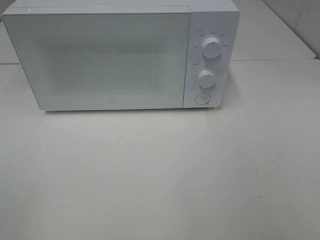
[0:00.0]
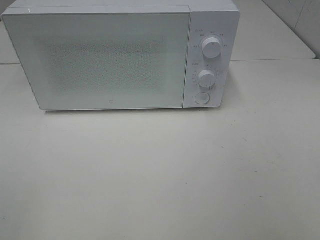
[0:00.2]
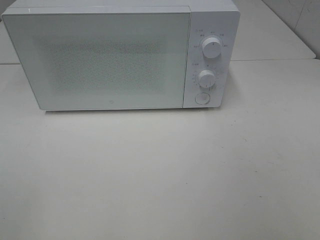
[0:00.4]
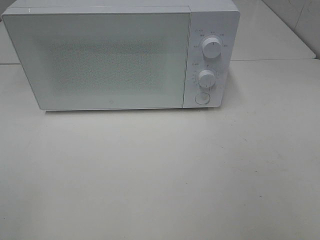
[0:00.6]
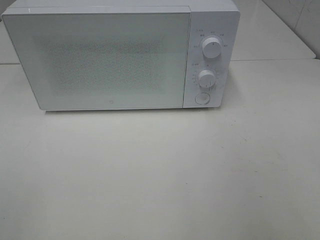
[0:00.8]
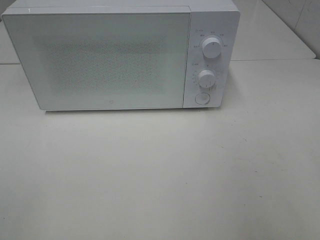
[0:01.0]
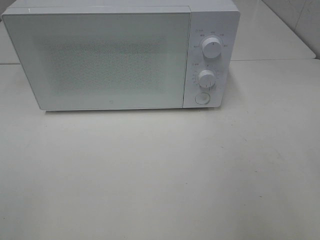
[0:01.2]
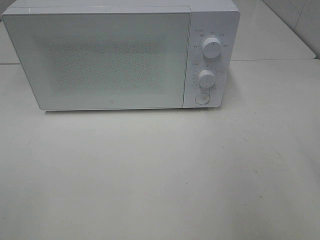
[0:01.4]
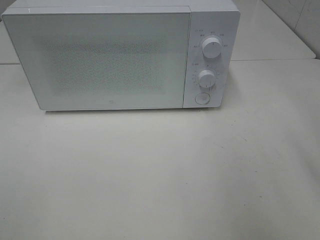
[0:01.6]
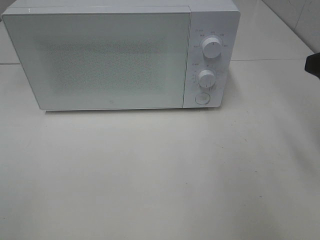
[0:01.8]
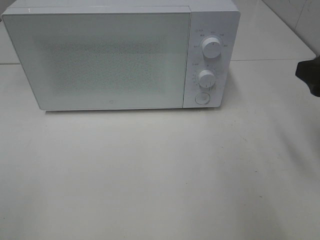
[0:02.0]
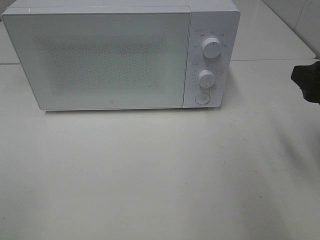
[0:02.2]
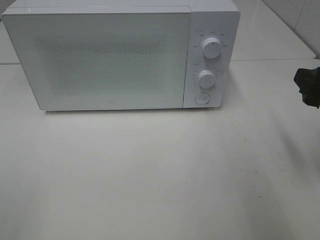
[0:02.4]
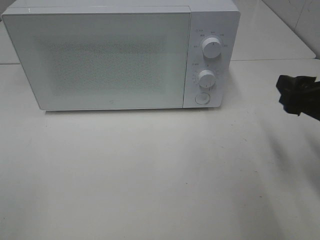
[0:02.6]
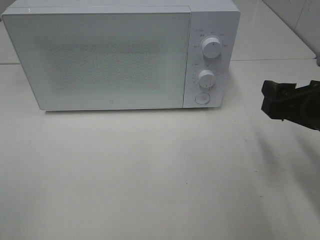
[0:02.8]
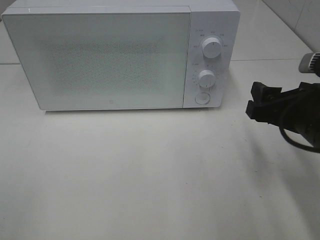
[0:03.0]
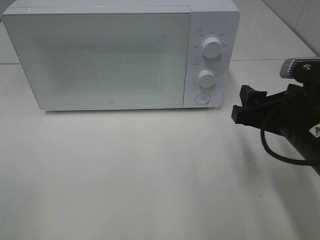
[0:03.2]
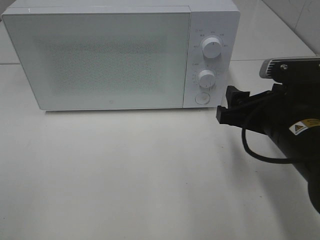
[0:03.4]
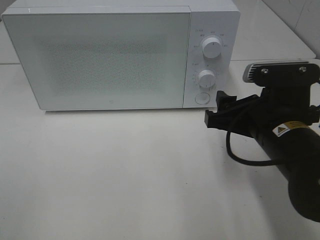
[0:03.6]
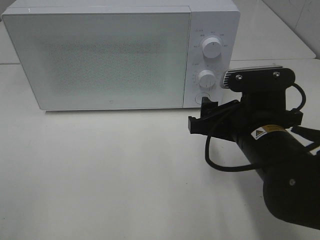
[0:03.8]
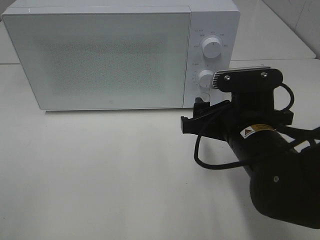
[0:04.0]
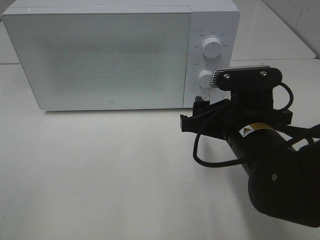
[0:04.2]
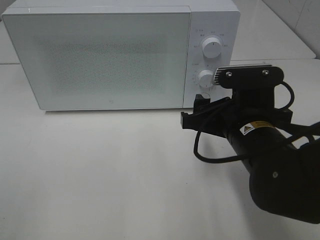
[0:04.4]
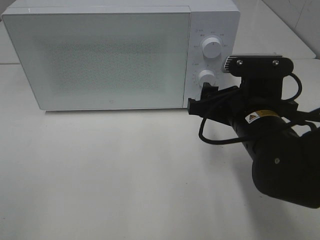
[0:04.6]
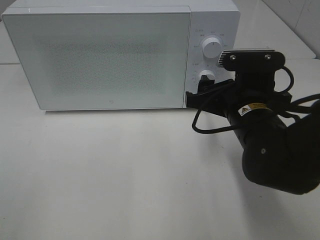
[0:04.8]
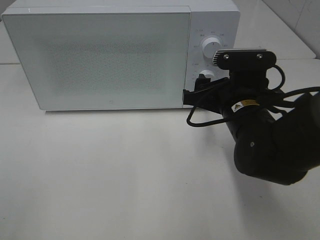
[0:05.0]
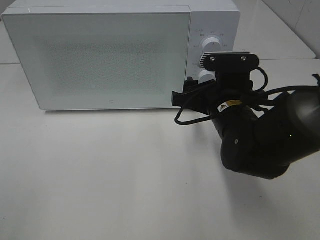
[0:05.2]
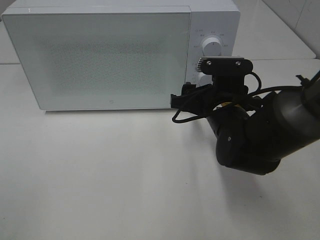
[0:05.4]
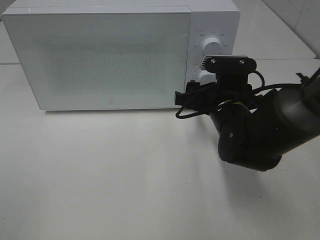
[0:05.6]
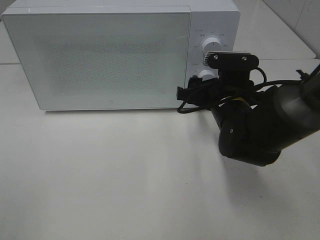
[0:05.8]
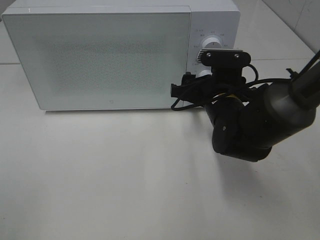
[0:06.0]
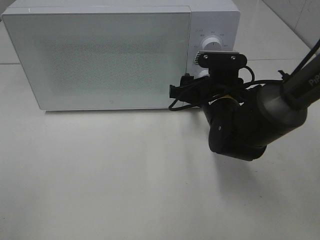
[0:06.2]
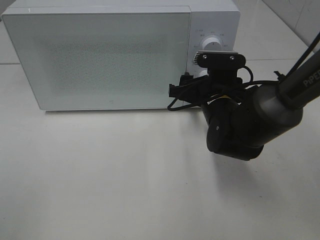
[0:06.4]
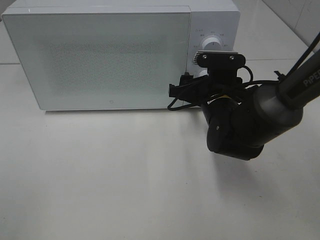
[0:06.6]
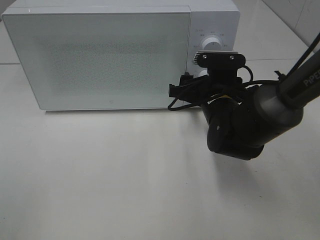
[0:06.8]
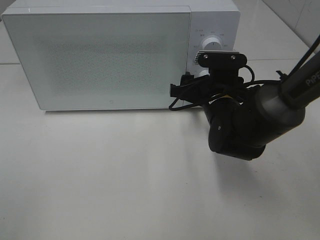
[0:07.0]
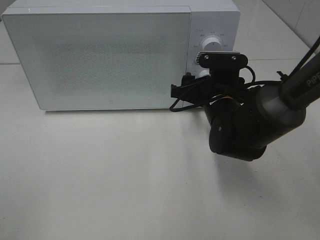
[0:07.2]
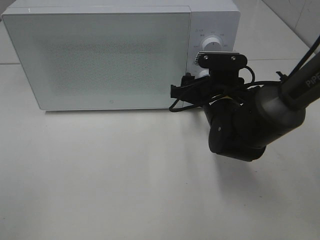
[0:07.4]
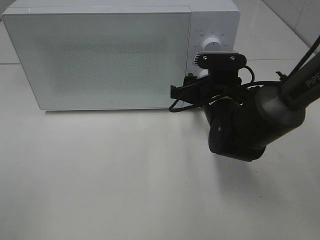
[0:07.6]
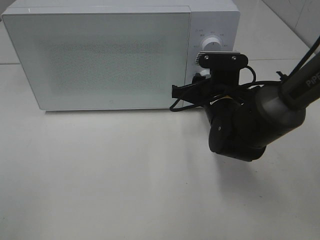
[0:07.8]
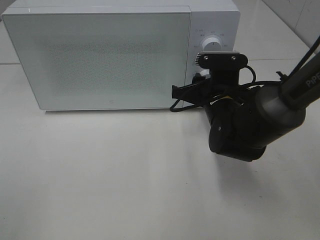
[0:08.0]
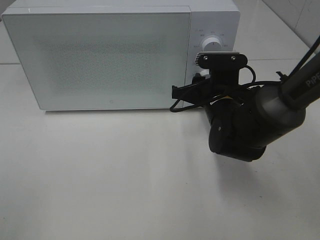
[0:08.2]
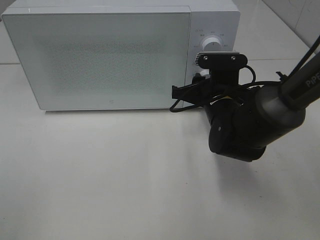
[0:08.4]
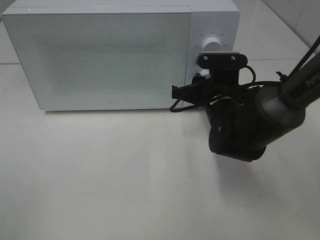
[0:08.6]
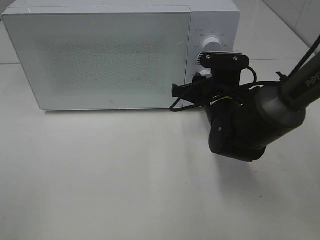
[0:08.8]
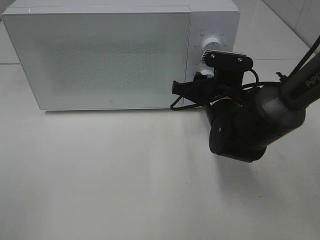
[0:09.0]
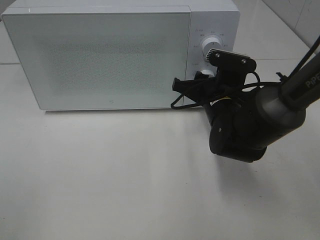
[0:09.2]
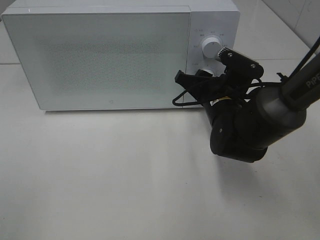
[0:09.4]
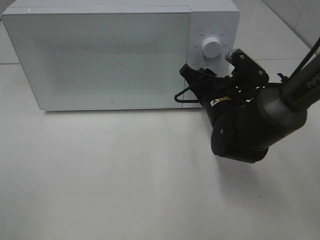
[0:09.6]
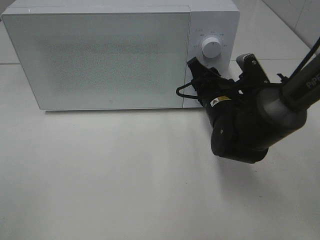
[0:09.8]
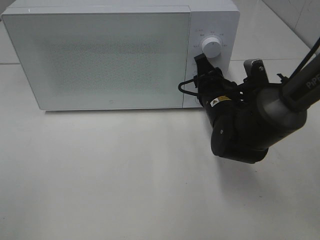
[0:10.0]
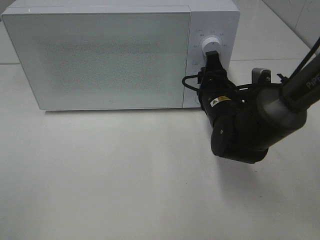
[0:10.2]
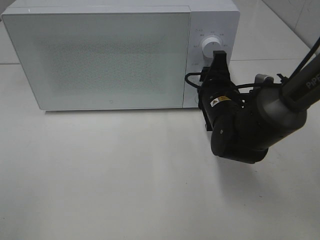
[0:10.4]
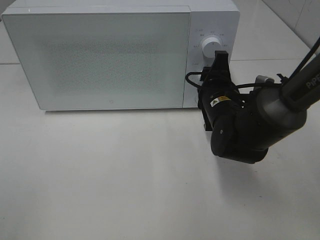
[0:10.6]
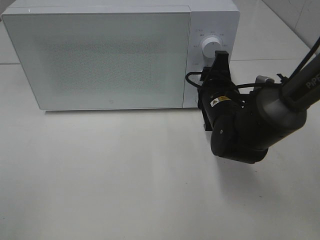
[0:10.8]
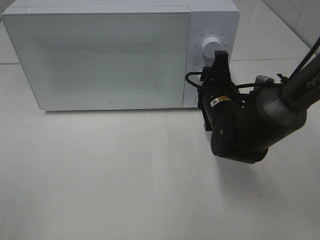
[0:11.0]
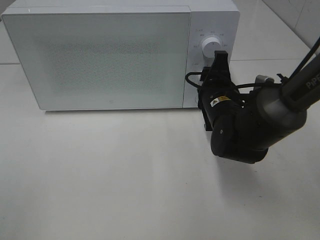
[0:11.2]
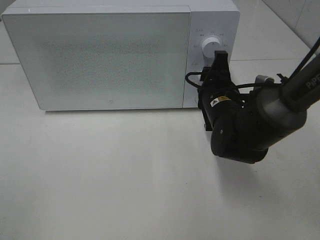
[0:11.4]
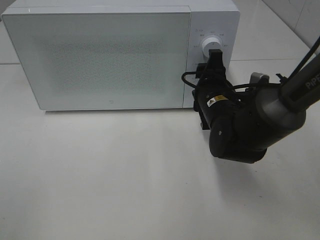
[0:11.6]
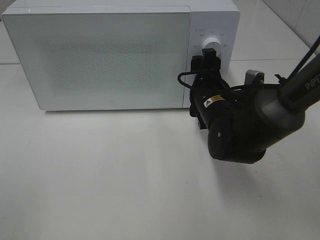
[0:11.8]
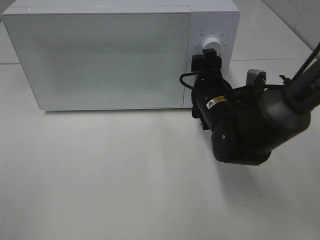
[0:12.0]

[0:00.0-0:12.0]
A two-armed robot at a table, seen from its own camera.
Task of the whole recording: Heat Sandwich.
0:01.6 to 0:03.0: The right gripper shifts roughly 10 cm downward and to the left.
0:03.0 to 0:04.4: The right gripper goes some 10 cm to the left.
0:04.4 to 0:06.0: The right gripper goes some 10 cm forward.
0:06.0 to 0:07.6: Both grippers stay about where they are.
0:07.6 to 0:09.0: There are only small adjustments of the grippers.
0:10.4 to 0:12.0: The right gripper opens up.

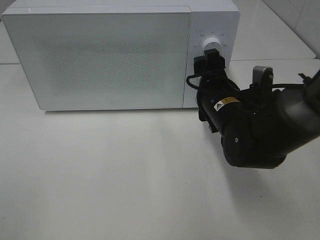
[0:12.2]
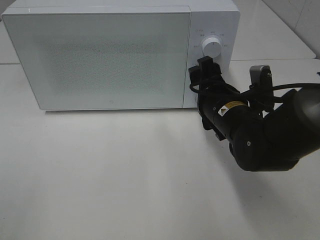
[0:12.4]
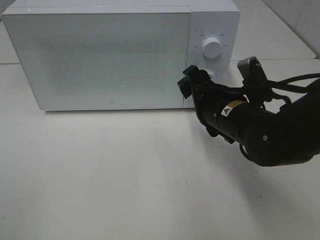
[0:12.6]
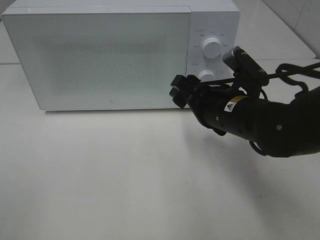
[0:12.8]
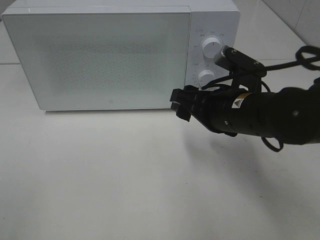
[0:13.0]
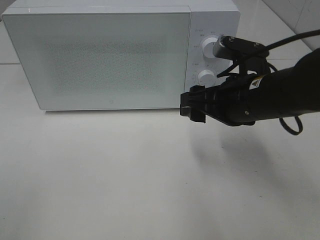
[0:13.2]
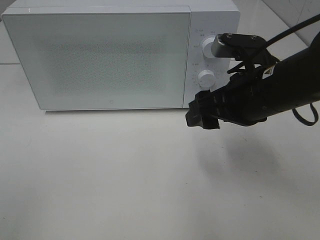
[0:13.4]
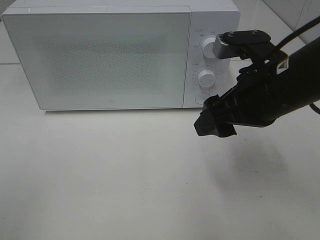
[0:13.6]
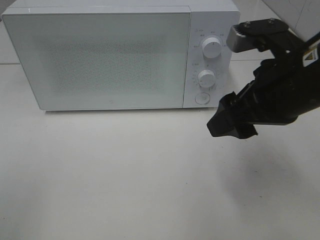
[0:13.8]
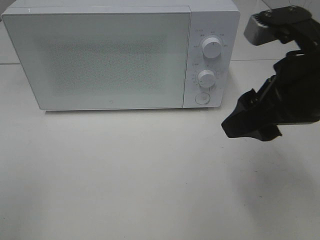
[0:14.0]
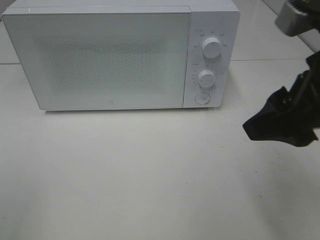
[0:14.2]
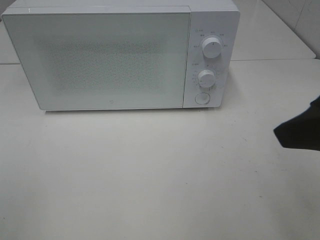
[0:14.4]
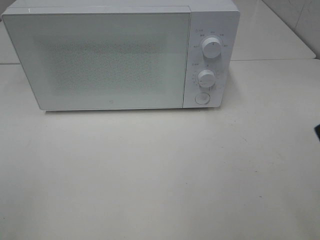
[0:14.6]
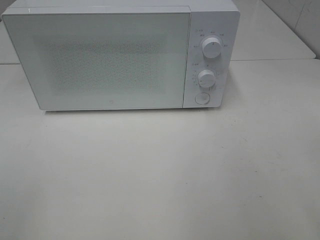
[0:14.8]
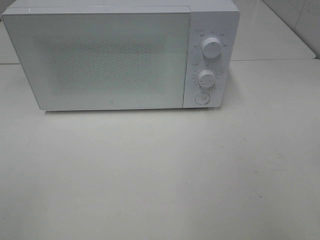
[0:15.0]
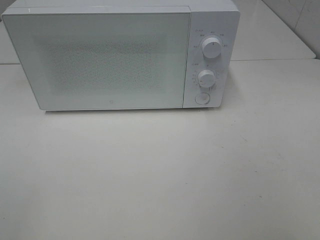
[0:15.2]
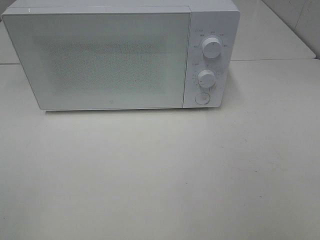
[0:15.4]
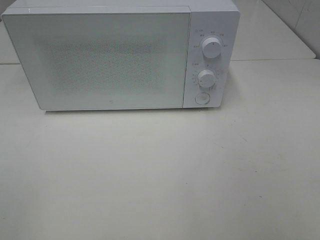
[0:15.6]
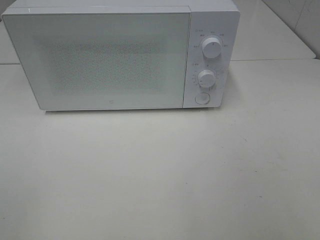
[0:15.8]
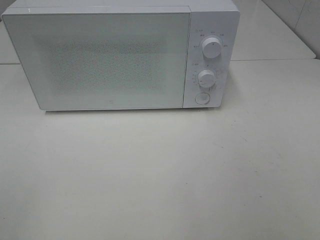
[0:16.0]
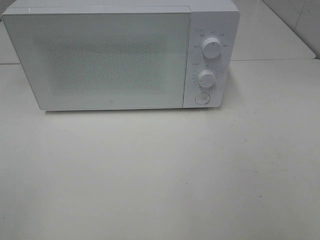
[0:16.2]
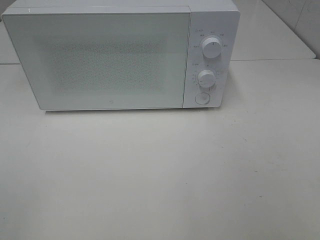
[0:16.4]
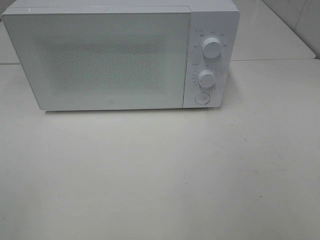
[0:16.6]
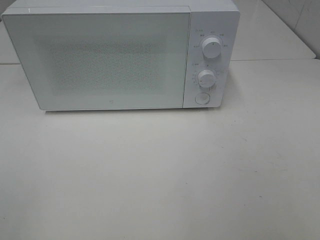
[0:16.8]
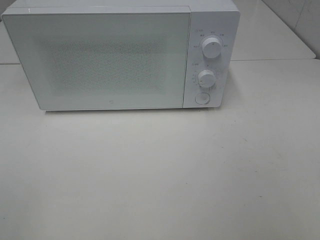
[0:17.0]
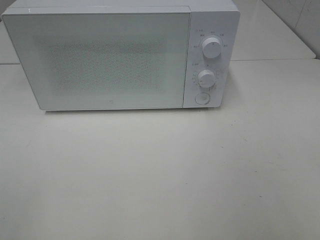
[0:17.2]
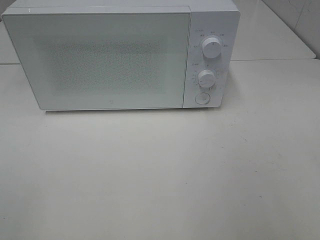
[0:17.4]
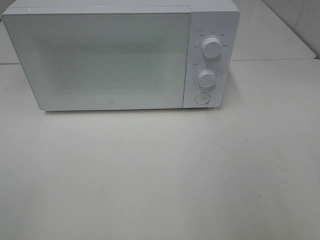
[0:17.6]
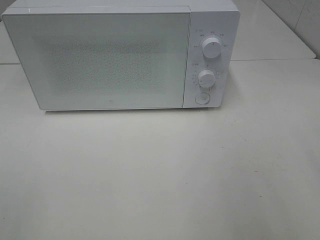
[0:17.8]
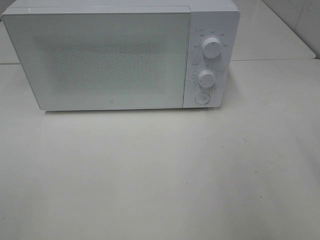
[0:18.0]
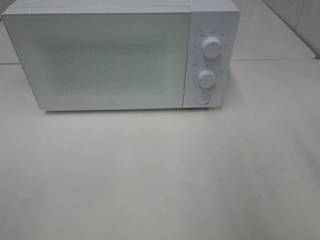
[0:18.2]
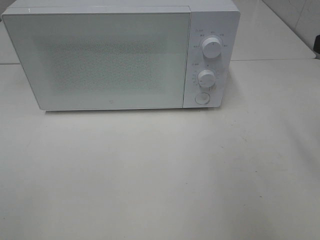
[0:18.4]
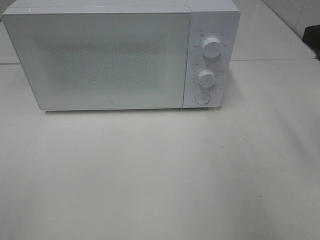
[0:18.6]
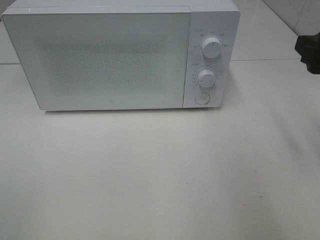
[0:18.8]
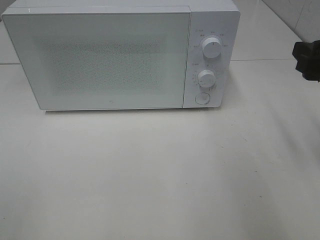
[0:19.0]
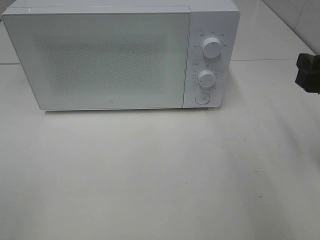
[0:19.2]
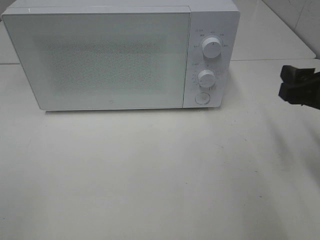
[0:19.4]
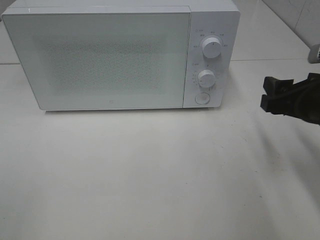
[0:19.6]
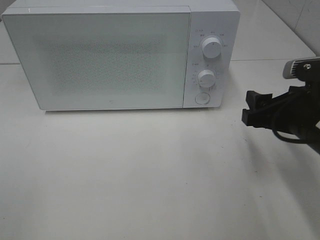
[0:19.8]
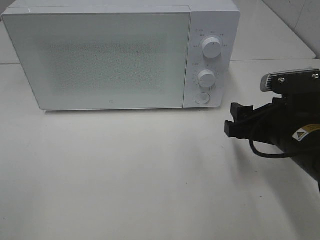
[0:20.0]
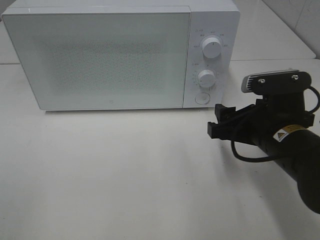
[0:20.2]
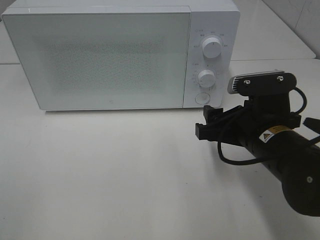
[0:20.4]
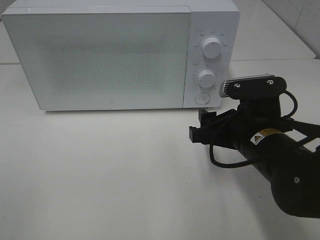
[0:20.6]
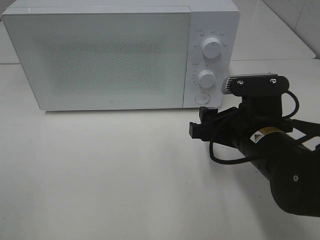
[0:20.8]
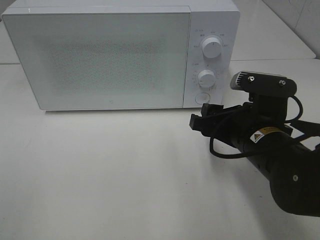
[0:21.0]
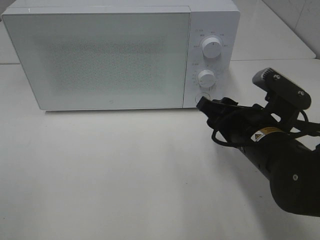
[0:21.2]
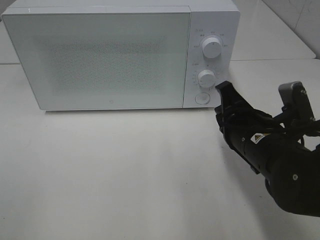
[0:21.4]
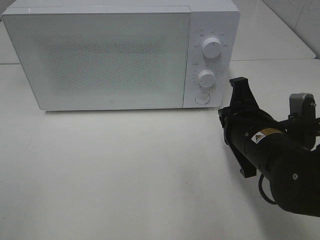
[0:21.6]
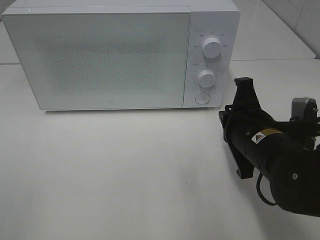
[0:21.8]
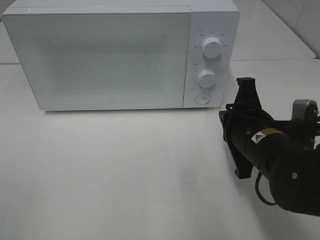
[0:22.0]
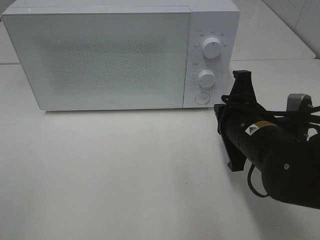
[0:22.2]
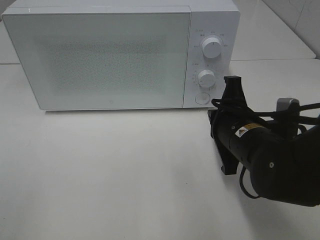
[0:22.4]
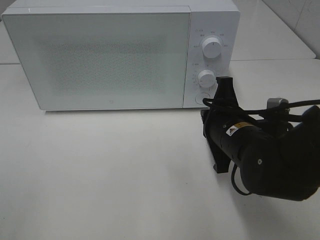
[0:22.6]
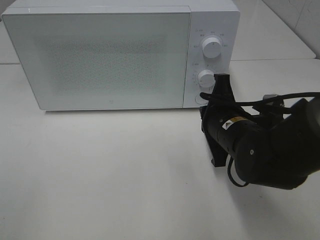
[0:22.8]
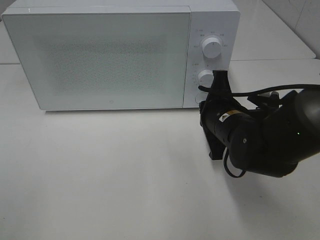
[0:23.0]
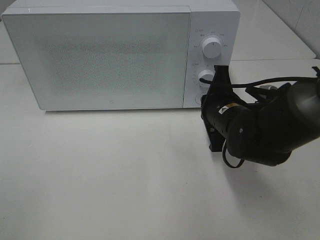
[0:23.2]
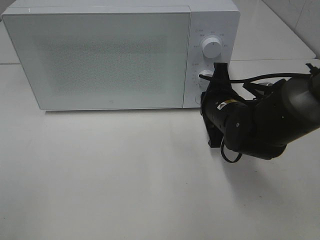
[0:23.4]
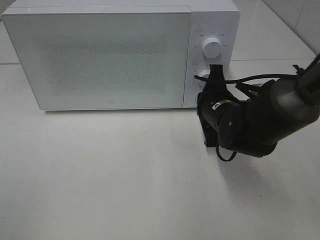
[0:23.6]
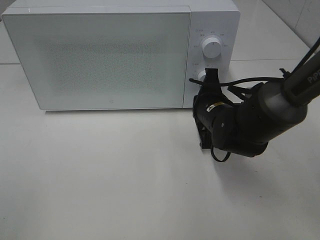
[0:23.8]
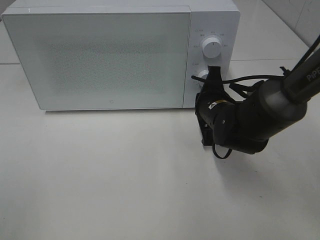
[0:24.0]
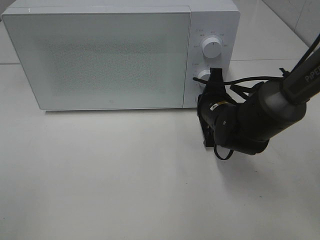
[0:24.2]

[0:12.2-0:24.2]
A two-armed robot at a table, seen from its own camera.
Task of the whole recording: Heat Sandwich.
0:12.2 to 0:13.8: The right gripper is displaced upward and backward by some 15 cm.
0:13.8 to 0:15.2: The right gripper is displaced backward and to the right by approximately 20 cm.
0:18.2 to 0:19.8: The right gripper shifts roughly 15 cm downward and to the left.
0:19.8 to 0:21.2: The right gripper is displaced to the left by about 5 cm.
0:21.2 to 0:22.6: The right gripper closes up.
0:22.6 to 0:24.2: The right gripper moves forward, roughly 10 cm.
